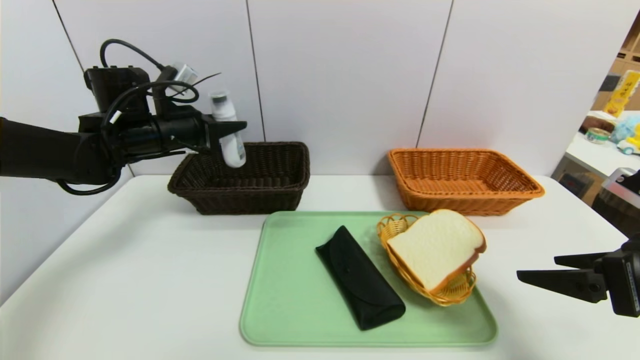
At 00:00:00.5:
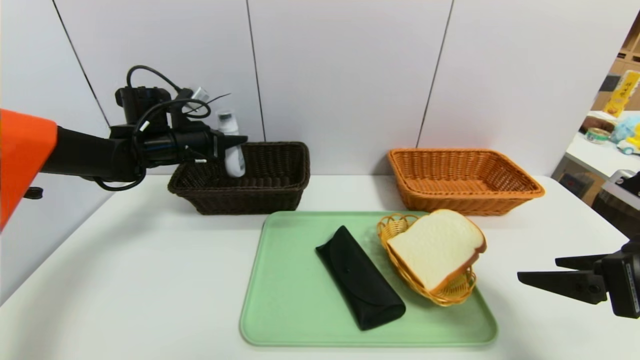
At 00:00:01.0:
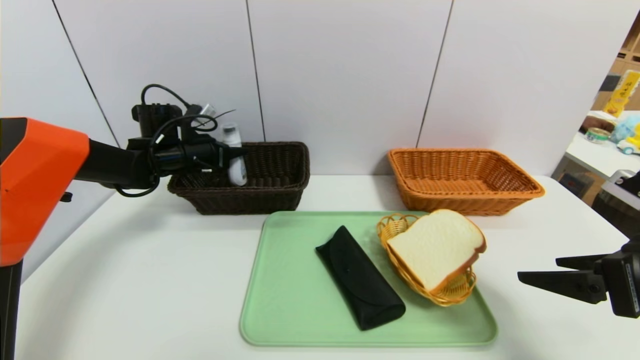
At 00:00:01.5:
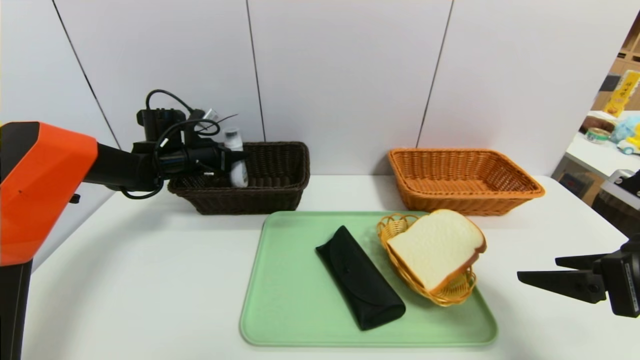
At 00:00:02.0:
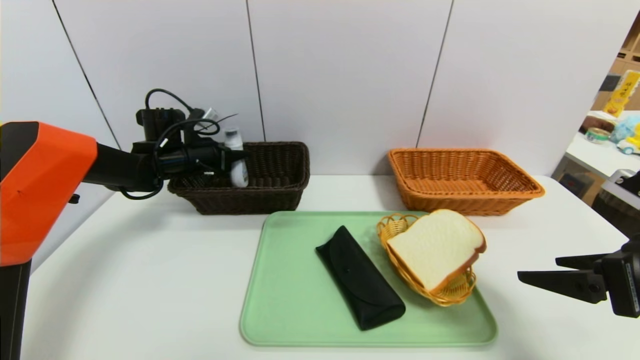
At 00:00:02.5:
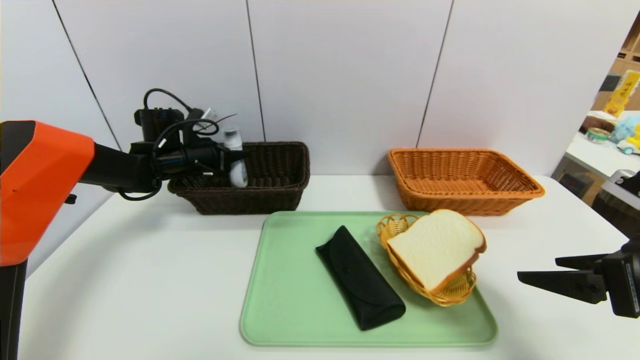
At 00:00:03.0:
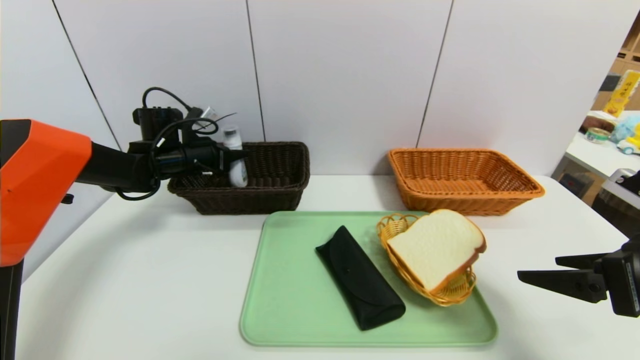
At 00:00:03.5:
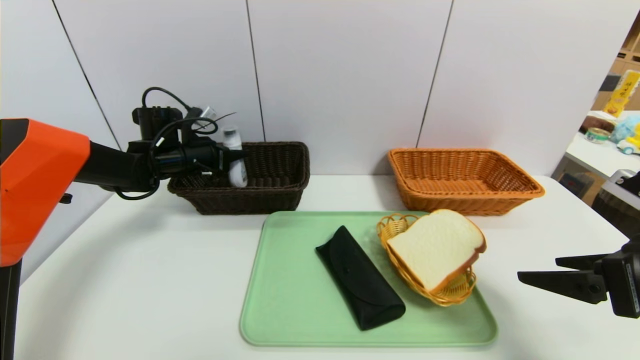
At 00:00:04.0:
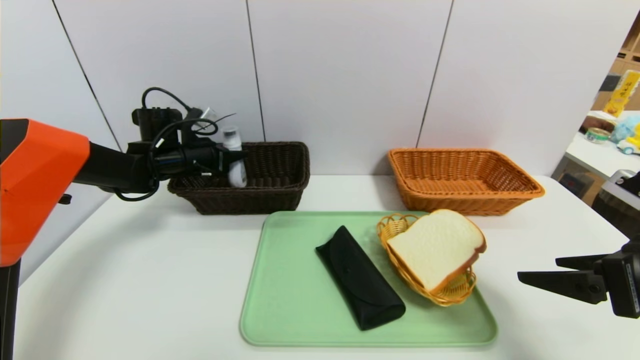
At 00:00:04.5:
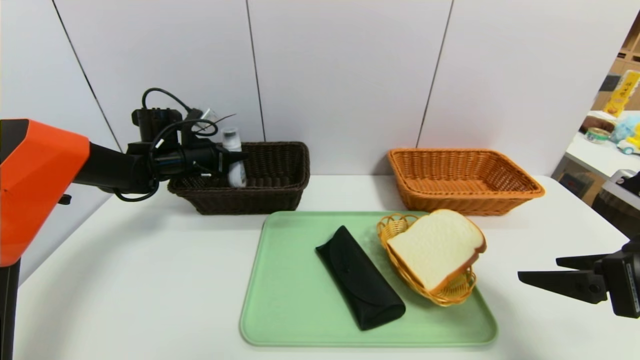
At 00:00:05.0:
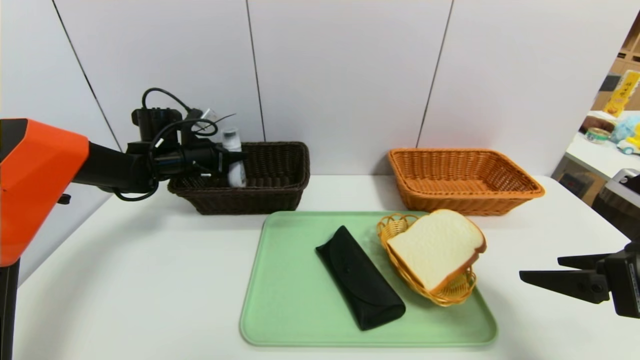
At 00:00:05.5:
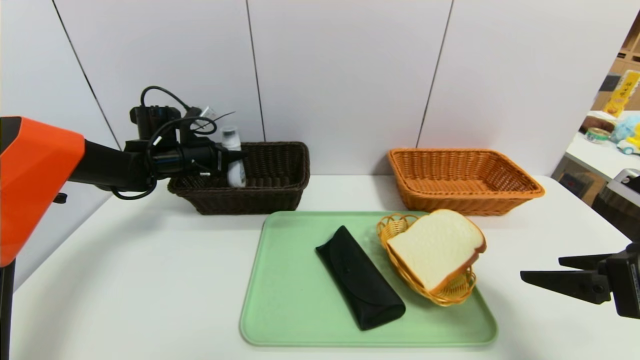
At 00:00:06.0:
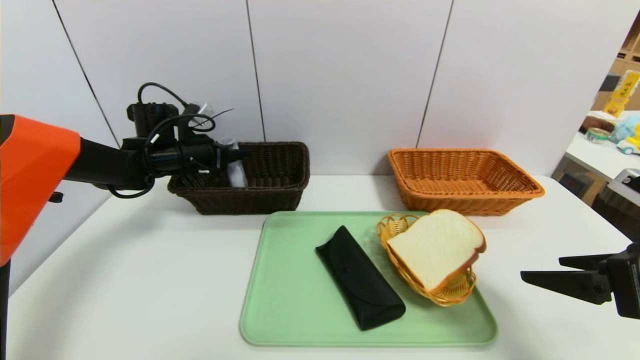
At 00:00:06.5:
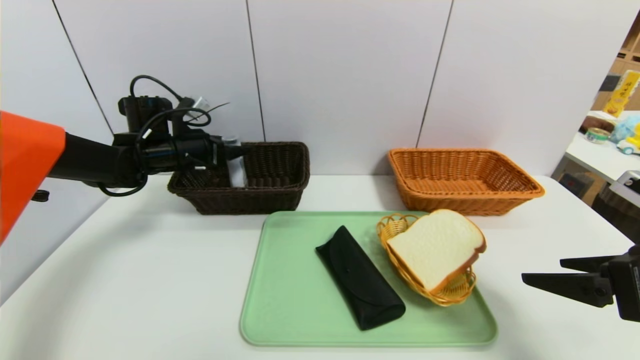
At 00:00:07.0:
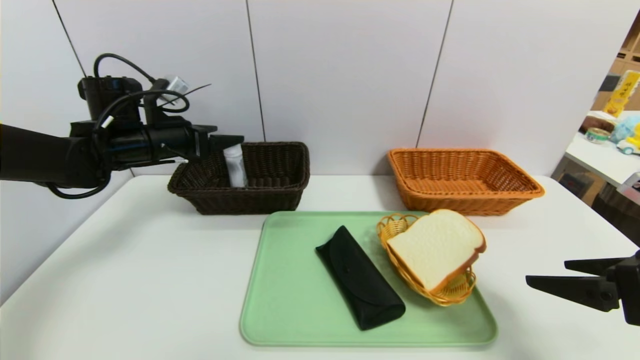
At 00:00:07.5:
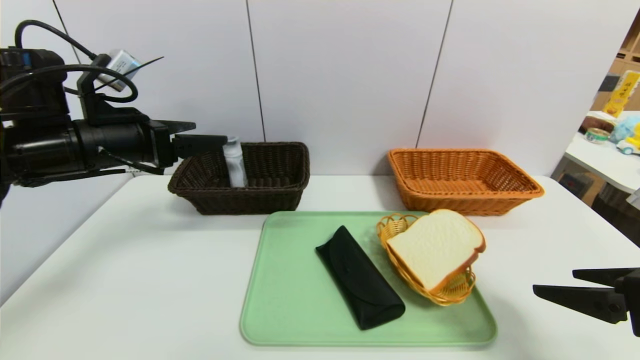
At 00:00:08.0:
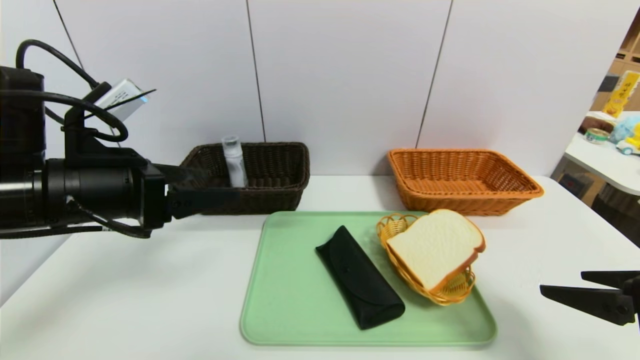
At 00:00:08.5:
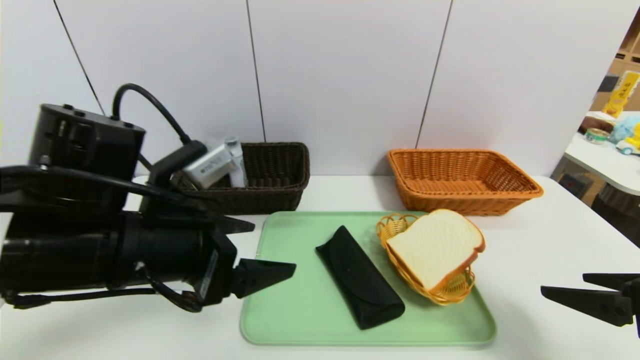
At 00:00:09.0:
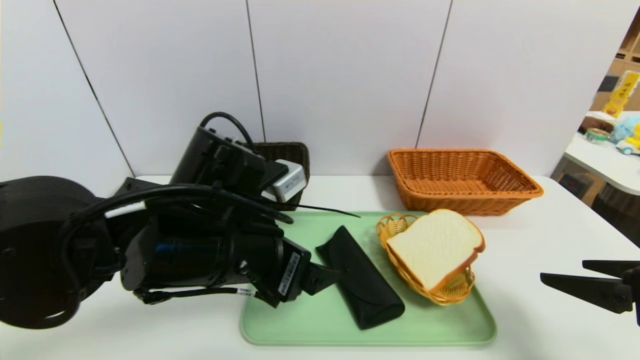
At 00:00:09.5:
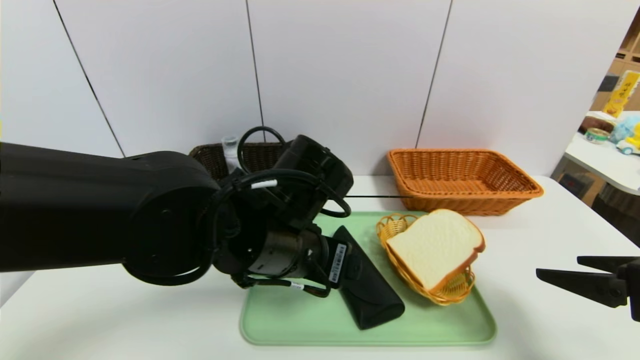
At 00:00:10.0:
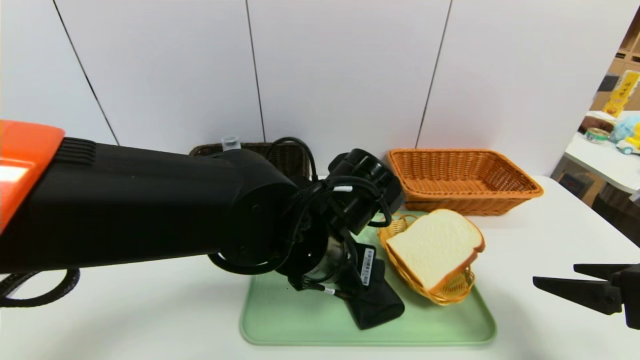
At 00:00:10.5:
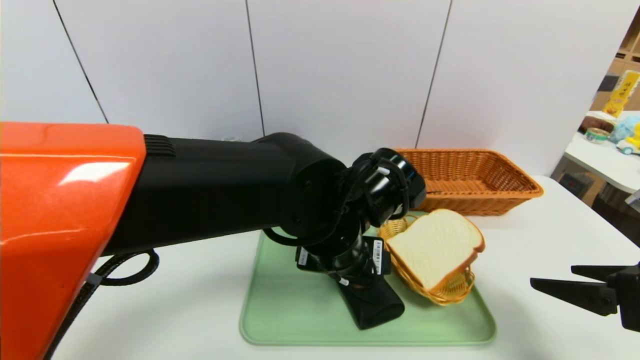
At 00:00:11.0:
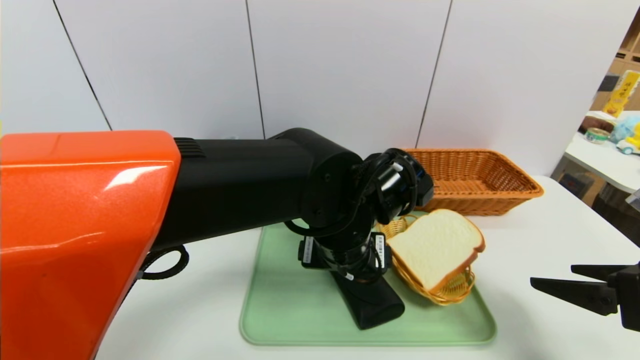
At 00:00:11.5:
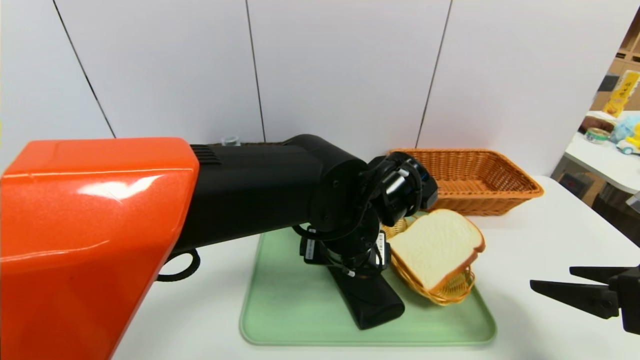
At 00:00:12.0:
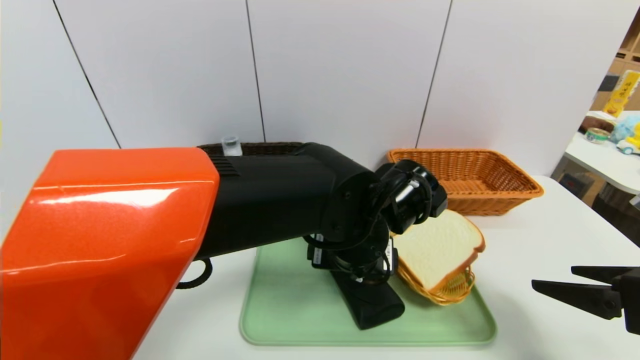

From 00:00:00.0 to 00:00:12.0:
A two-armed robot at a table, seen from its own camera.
Task of the whole recording: place the food in the right basket with the right gripper, and place the non food items in the left basket with the left gripper.
Step, from 00:00:00.0 to 00:00:06.0: Grasp the cleaning agent and put it in the left basket.
From 00:00:00.0 to 00:00:02.0: The left gripper shifts approximately 10 cm downward and forward.
From 00:00:02.0 to 00:00:04.0: The two grippers keep their place.
From 00:00:04.0 to 00:00:06.0: The left gripper opens up.
From 00:00:06.0 to 00:00:08.0: The left gripper goes about 25 cm backward, and opens its fingers.
From 00:00:08.0 to 00:00:10.0: The left gripper travels to the right by approximately 25 cm.
From 00:00:10.0 to 00:00:12.0: The left gripper moves roughly 5 cm.

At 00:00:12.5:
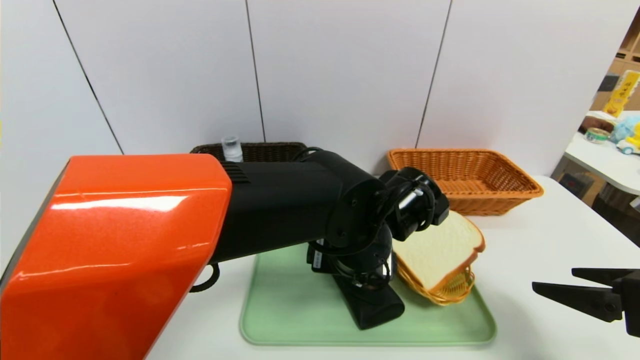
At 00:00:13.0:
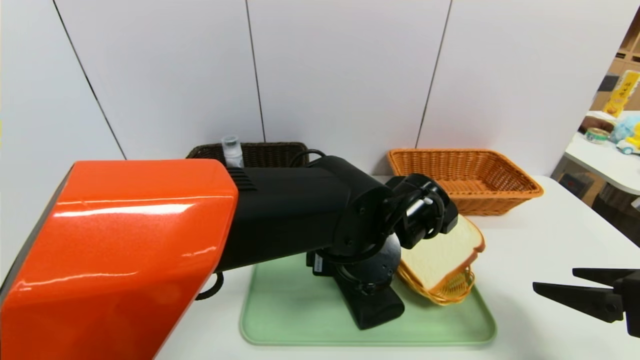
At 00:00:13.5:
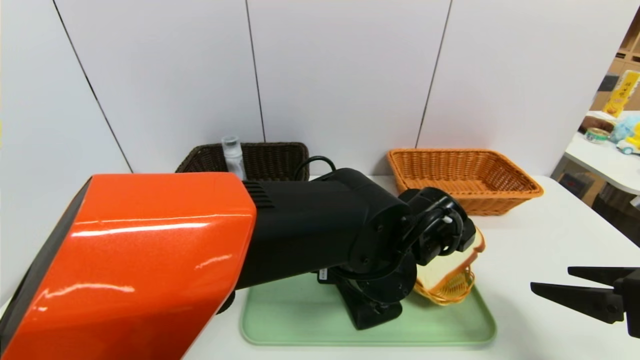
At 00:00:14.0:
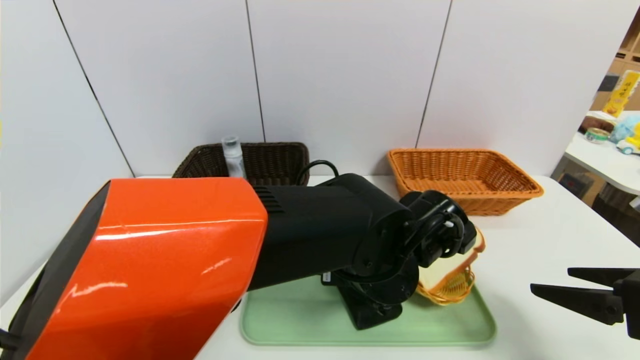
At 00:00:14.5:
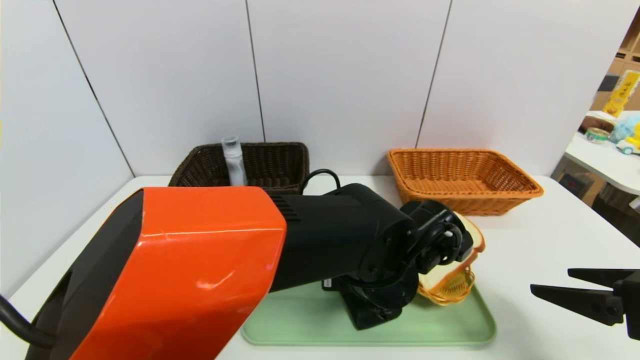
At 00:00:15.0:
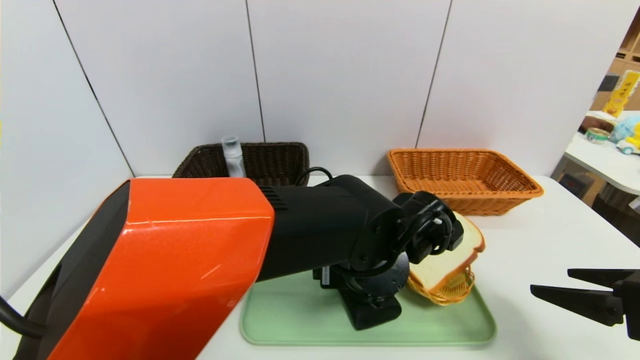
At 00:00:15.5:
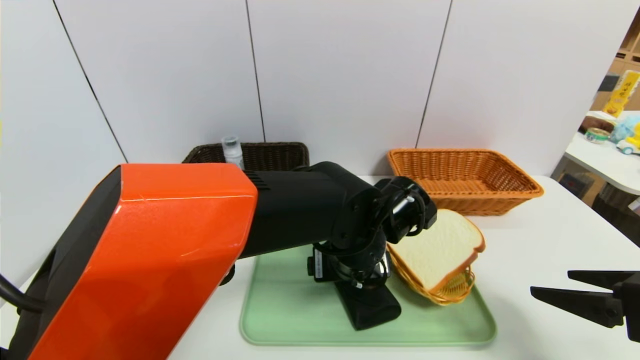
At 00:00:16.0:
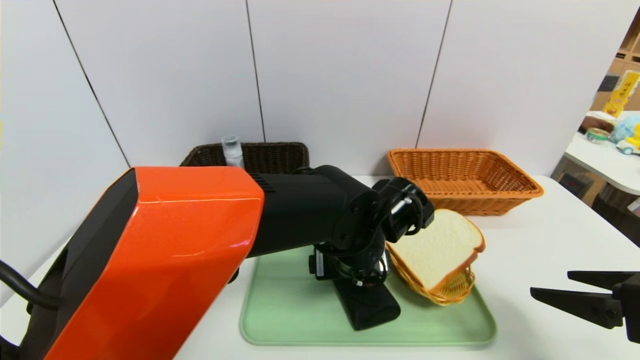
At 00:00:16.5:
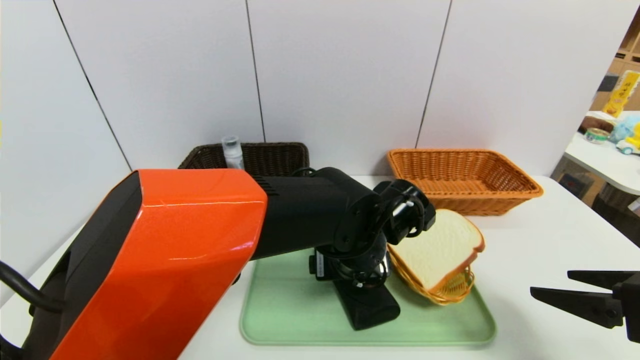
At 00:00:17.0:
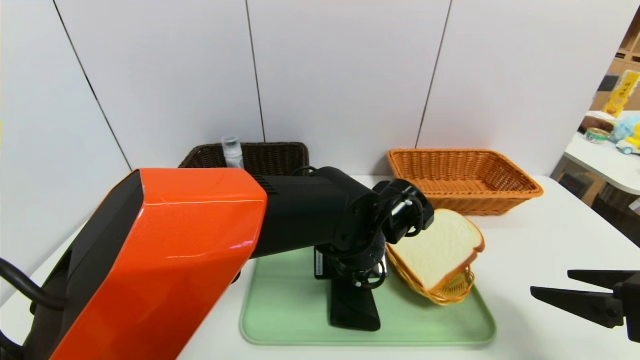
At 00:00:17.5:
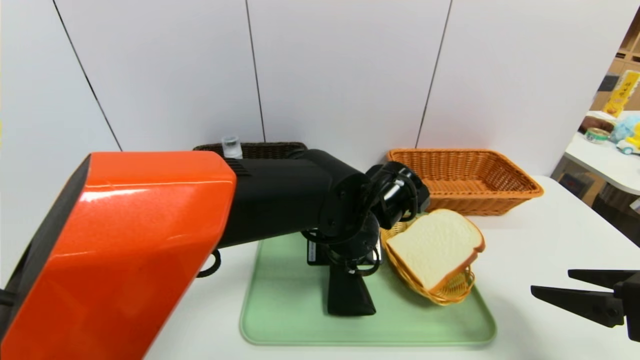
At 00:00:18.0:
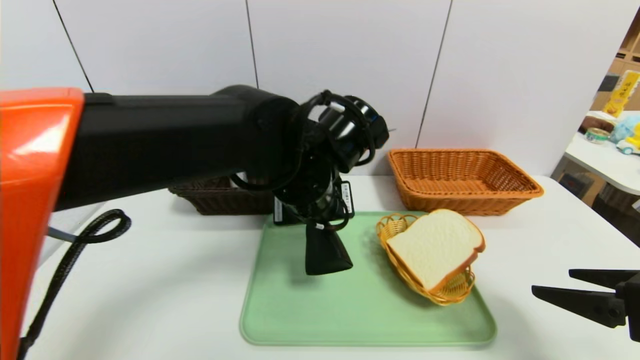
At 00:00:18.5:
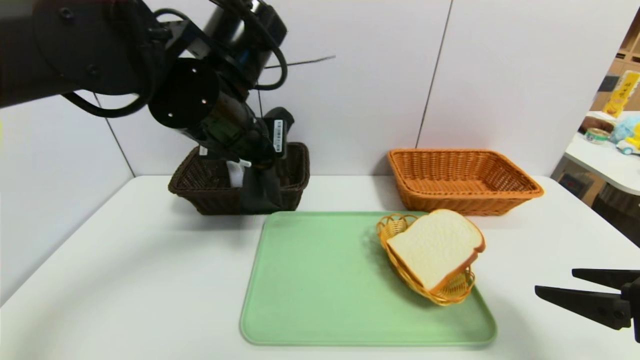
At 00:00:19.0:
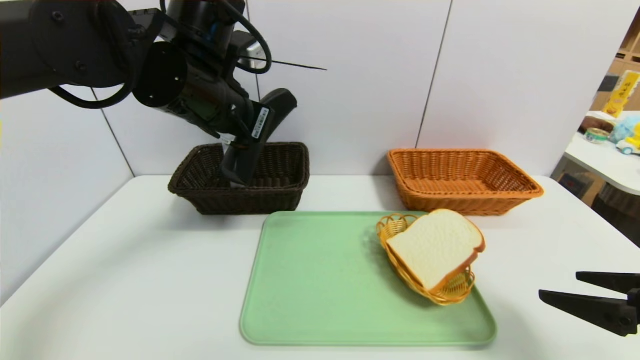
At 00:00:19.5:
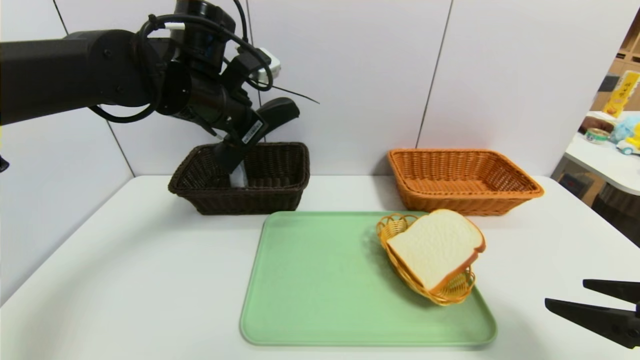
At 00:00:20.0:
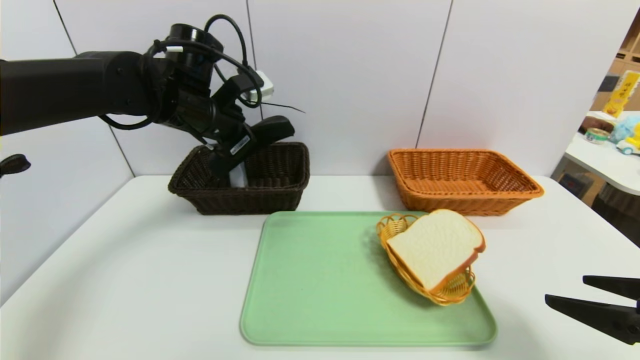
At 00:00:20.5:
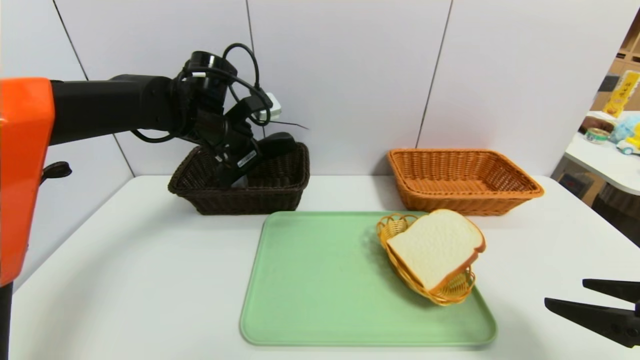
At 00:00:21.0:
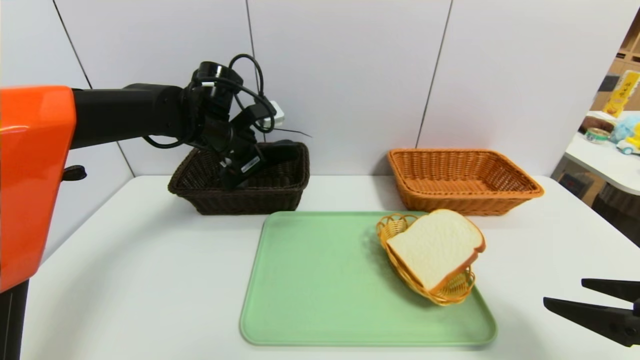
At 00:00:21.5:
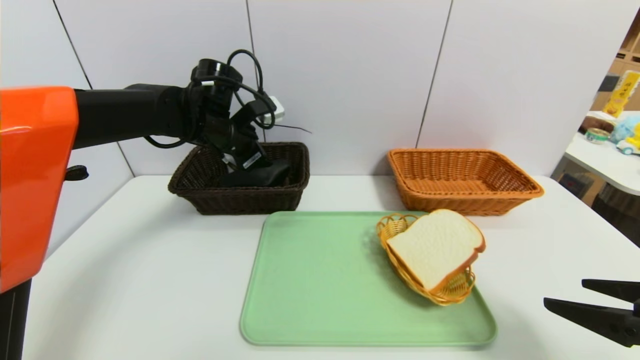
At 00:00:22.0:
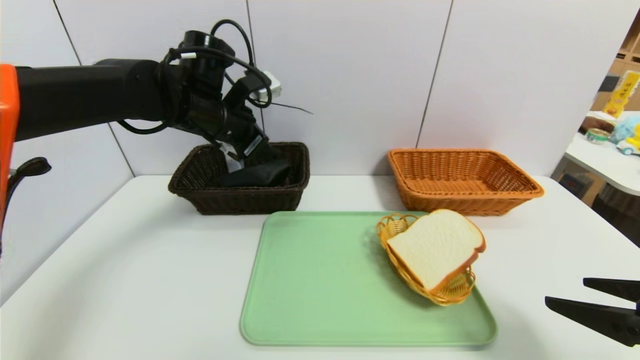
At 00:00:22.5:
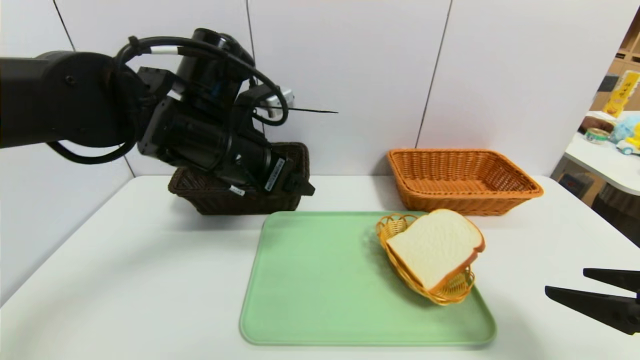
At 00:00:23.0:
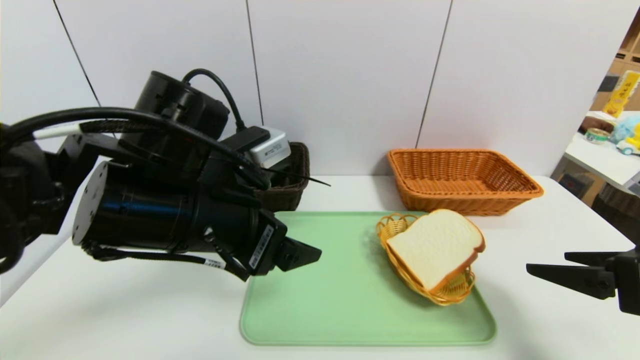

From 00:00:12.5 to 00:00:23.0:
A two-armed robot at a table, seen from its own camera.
Task of the whole recording: place the food in the right basket with the right gripper, and place the non food items in the left basket with the left gripper.
Step, from 00:00:12.5 to 00:00:21.5: Grasp the glasses case and put it in the left basket.
From 00:00:14.5 to 00:00:16.5: The grippers move only a little.
From 00:00:16.5 to 00:00:19.0: The left gripper heads upward and to the left, covering about 25 cm, and closes its fingers.
From 00:00:19.0 to 00:00:21.0: The left gripper is displaced forward and downward by roughly 15 cm.
From 00:00:21.0 to 00:00:23.0: The left gripper shifts about 20 cm backward, and opens up.
